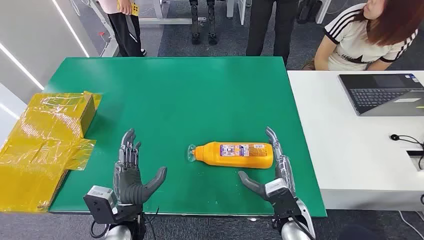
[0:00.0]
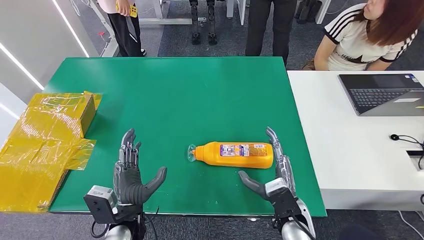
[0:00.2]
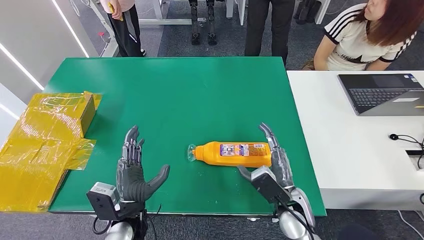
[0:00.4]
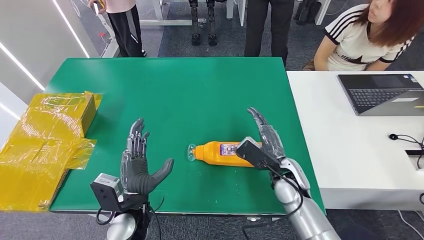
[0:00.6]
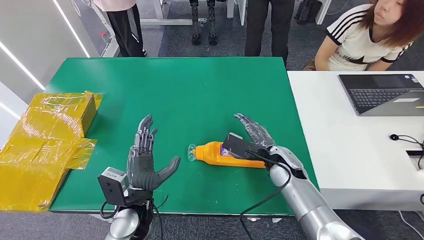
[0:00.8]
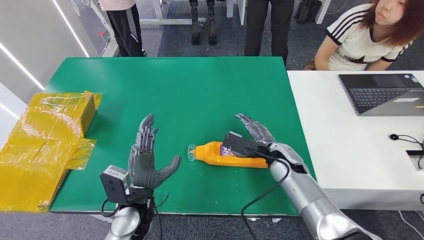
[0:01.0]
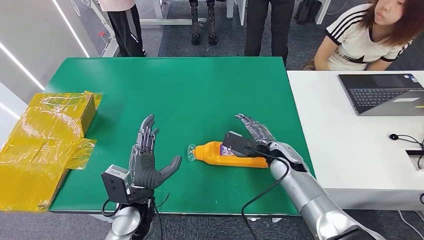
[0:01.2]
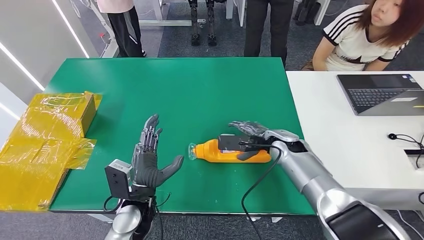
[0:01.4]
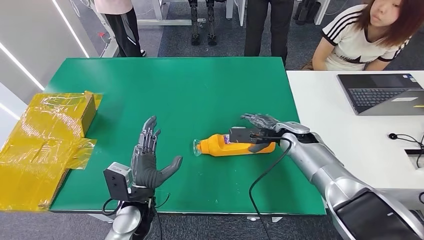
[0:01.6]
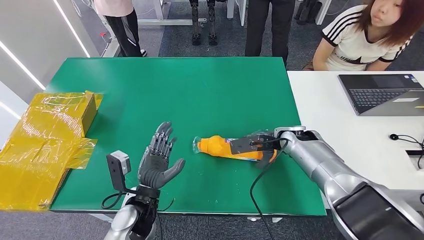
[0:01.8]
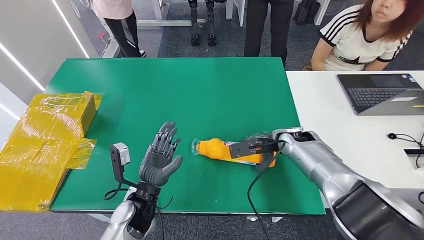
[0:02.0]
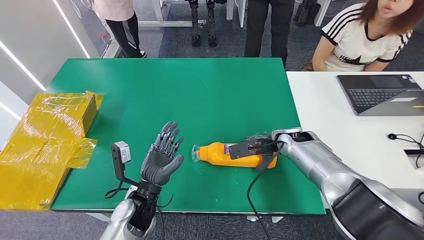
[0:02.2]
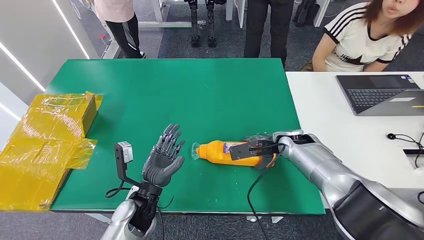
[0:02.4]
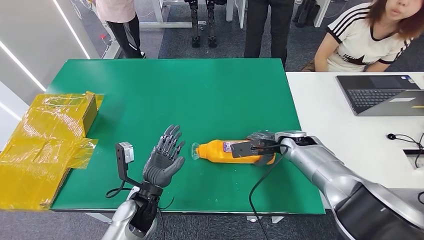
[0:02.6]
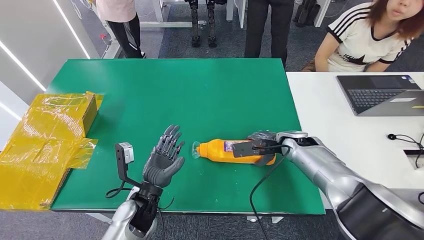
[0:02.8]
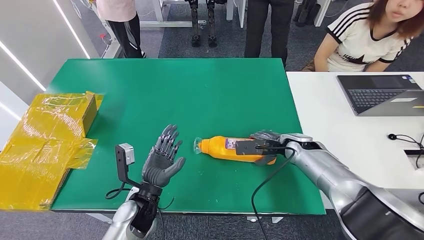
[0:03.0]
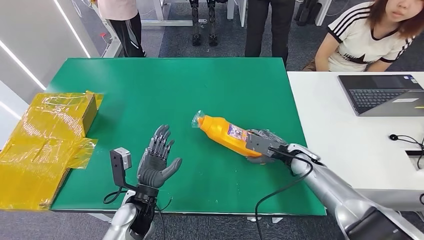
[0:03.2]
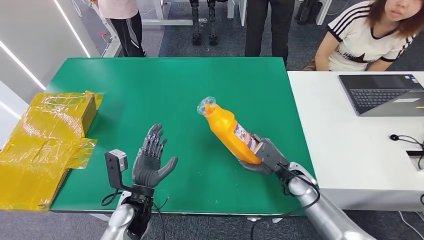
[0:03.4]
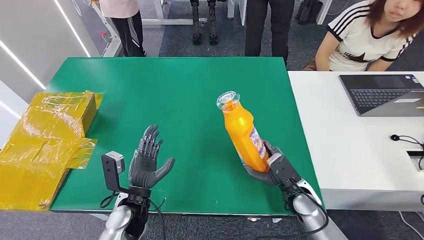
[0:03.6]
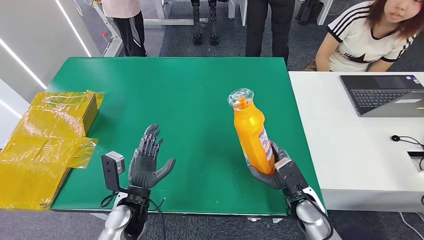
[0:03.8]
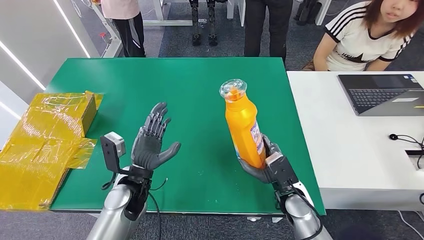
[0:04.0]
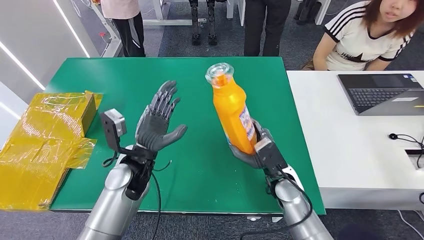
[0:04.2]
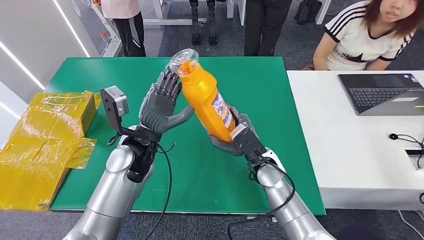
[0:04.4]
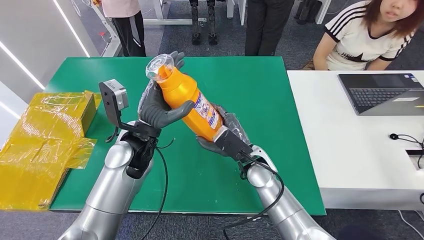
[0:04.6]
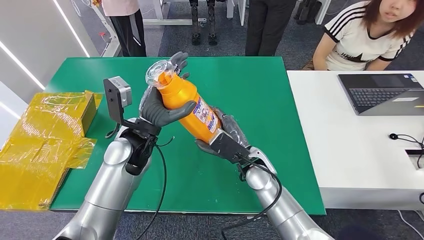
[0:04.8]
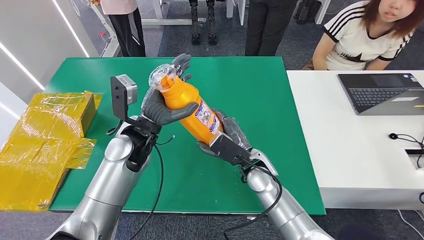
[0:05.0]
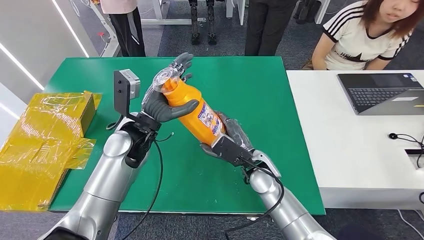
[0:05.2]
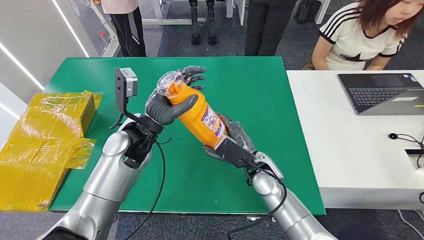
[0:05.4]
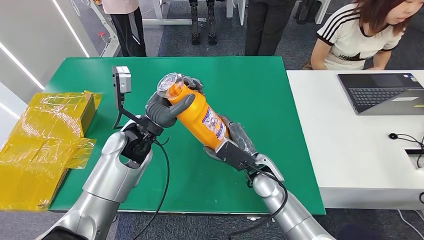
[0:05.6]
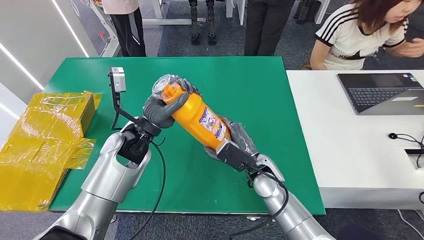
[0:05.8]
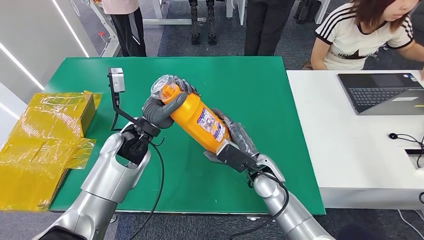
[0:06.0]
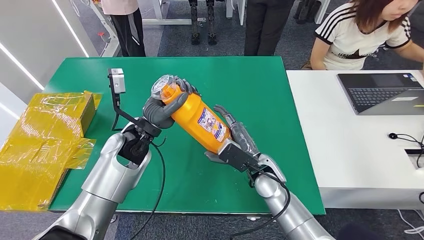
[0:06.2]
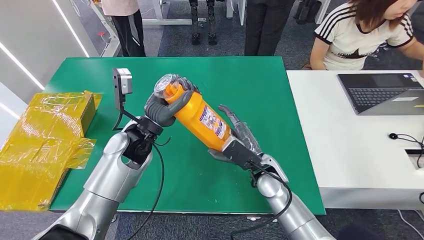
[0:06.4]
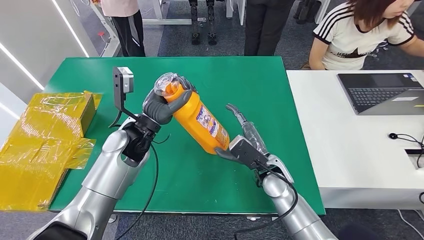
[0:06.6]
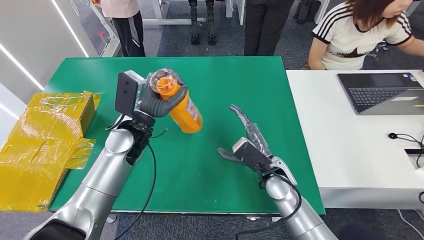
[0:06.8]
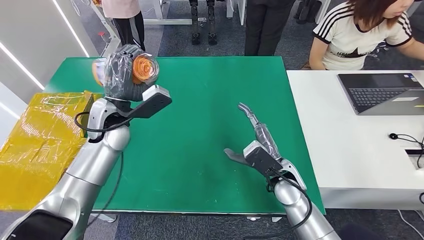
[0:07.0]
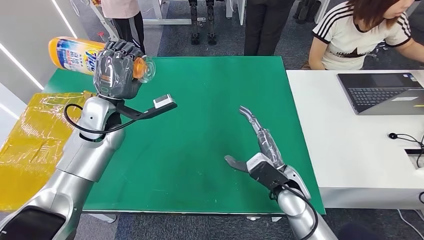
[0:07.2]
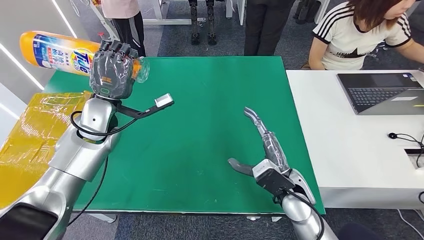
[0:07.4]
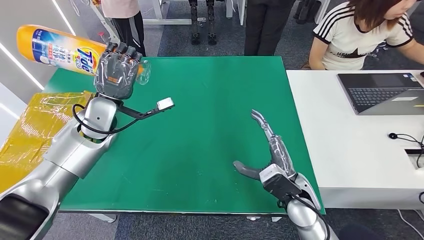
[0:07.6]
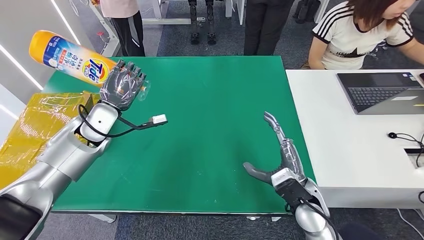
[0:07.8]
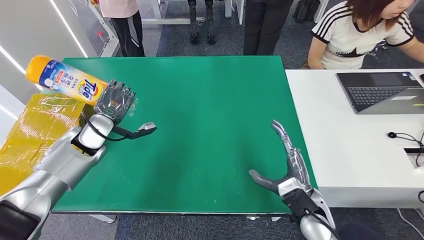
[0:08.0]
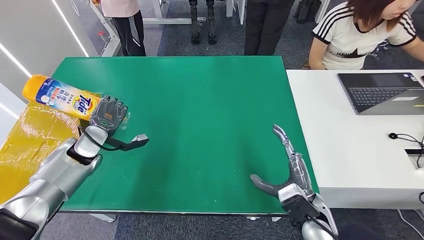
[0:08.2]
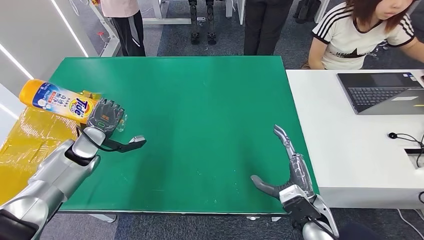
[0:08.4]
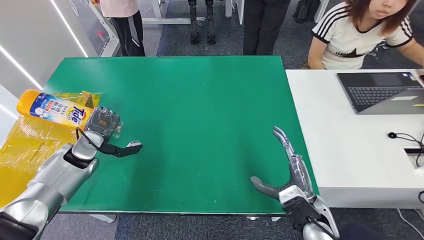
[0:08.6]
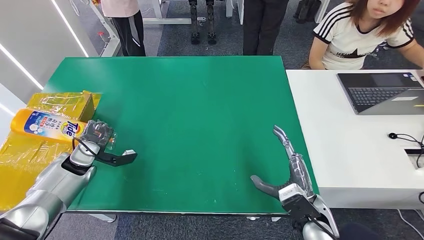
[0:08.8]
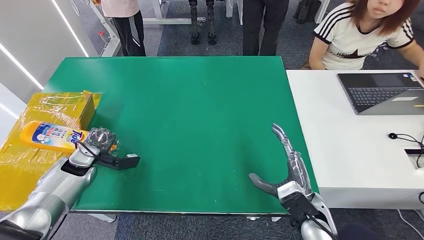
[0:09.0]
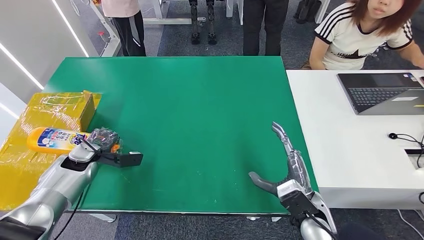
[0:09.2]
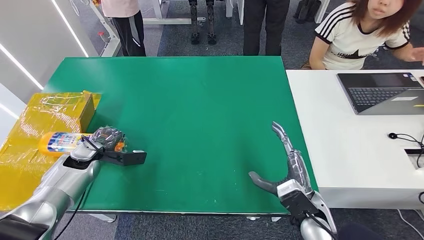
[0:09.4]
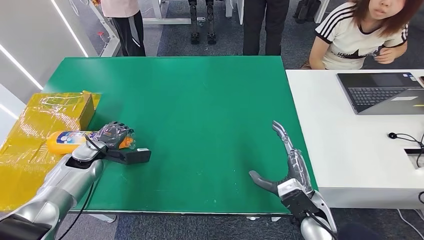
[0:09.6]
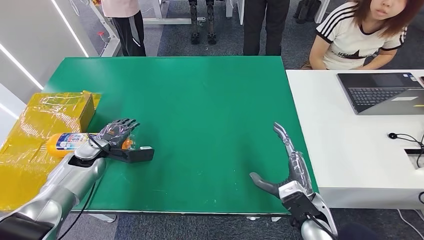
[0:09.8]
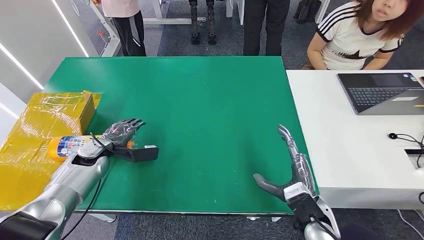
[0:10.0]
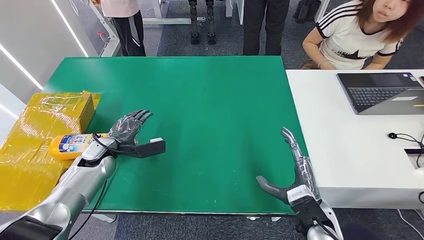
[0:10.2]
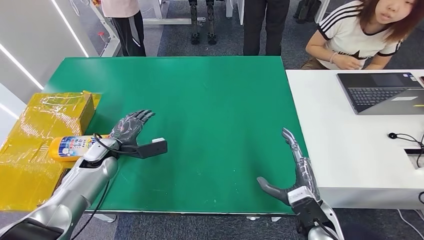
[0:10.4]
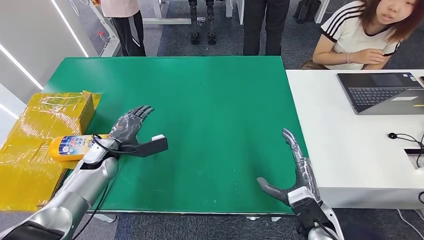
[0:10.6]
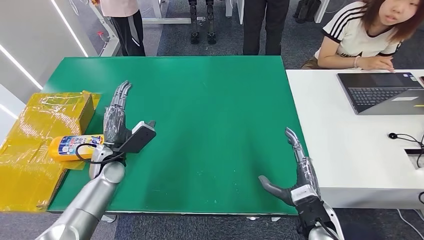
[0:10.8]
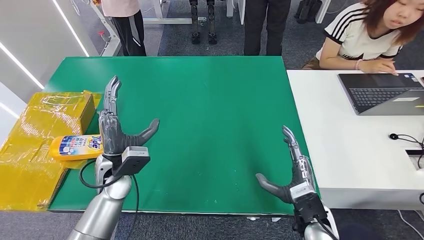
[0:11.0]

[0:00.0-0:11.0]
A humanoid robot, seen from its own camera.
Step, 0:00.0 to 0:04.0: Pick up the bottle from the table.
Step, 0:04.4 to 0:11.0: Turn the bottle to the front side.
0:01.6 to 0:03.2: The right hand goes roughly 5 cm downward.
0:07.8 to 0:09.4: The left hand goes roughly 15 cm downward and to the left.
0:09.4 to 0:11.0: The left hand goes approximately 15 cm to the right and backward.
